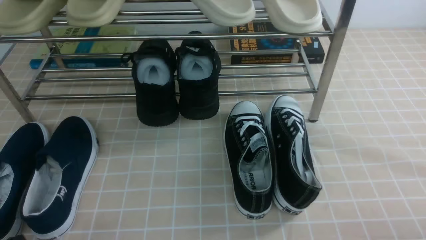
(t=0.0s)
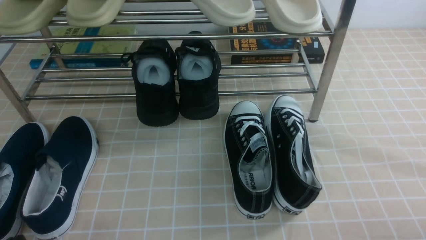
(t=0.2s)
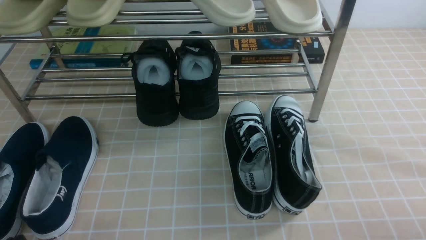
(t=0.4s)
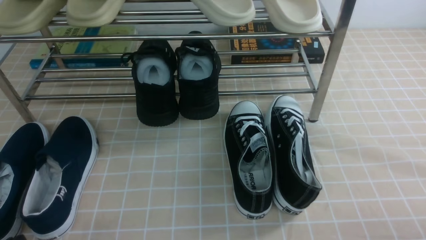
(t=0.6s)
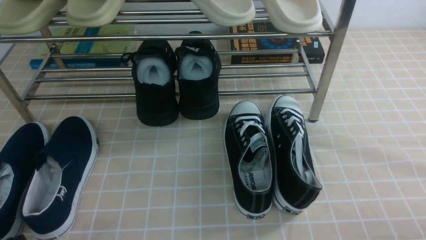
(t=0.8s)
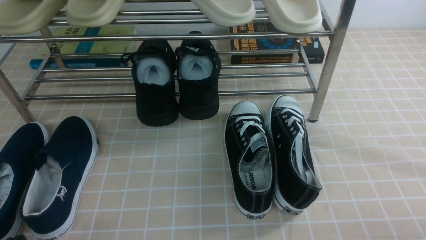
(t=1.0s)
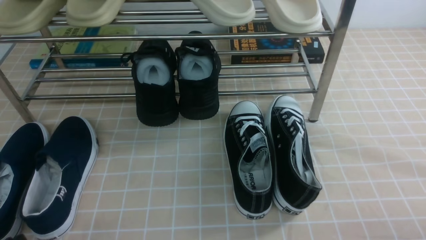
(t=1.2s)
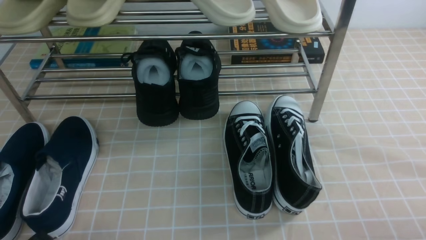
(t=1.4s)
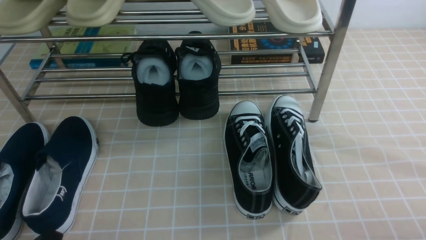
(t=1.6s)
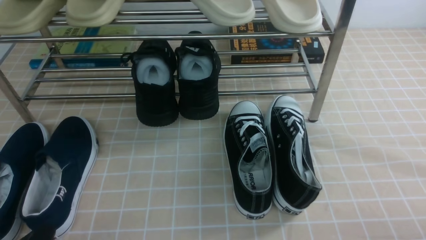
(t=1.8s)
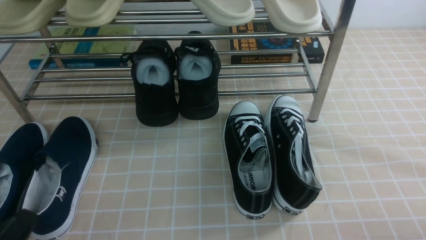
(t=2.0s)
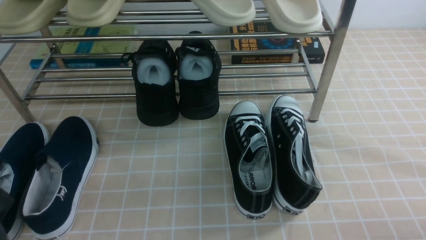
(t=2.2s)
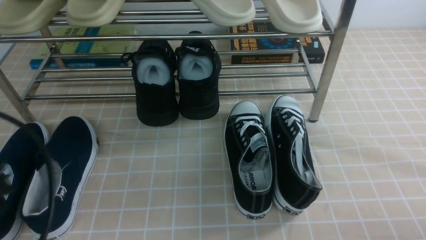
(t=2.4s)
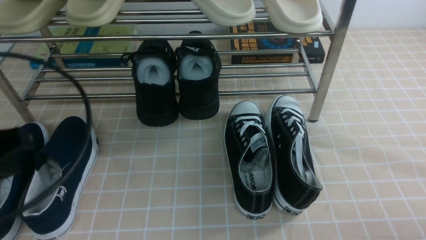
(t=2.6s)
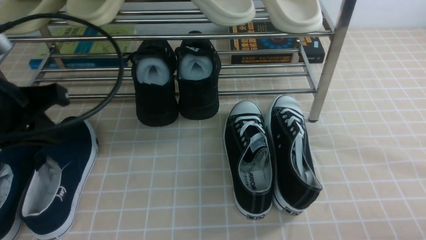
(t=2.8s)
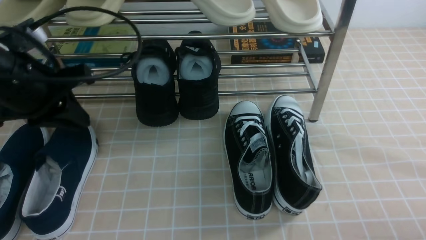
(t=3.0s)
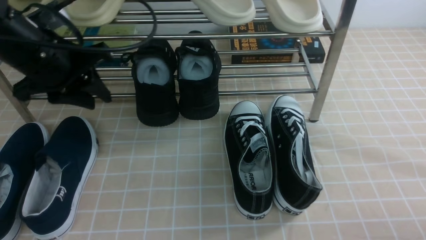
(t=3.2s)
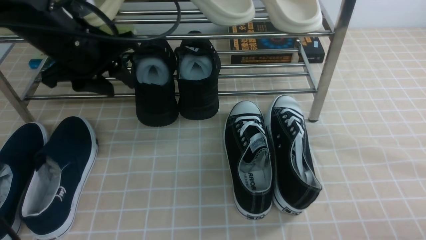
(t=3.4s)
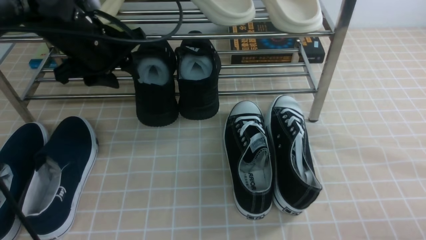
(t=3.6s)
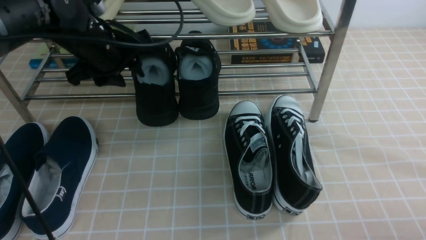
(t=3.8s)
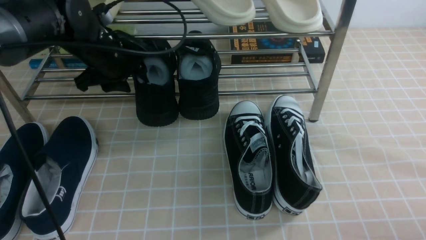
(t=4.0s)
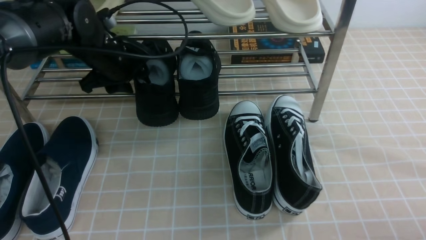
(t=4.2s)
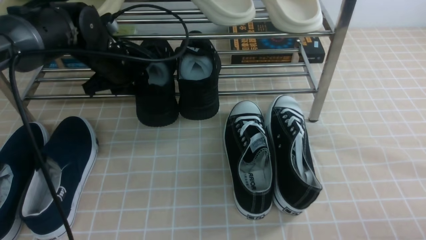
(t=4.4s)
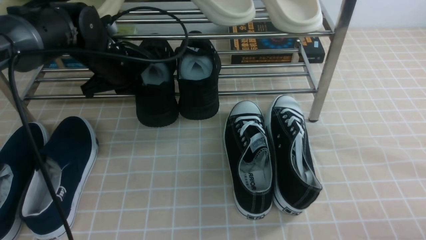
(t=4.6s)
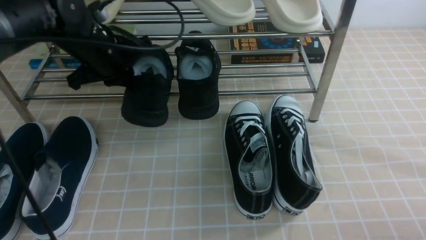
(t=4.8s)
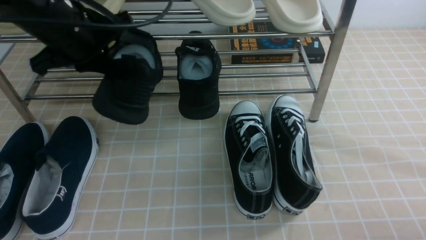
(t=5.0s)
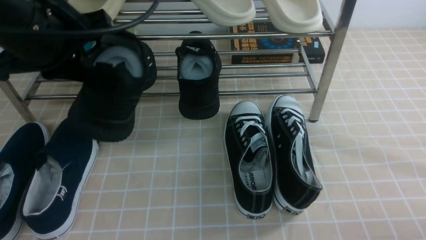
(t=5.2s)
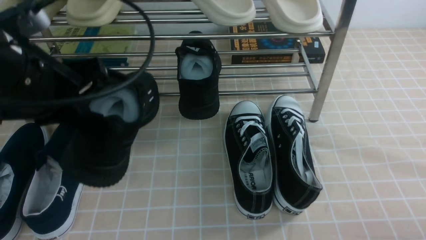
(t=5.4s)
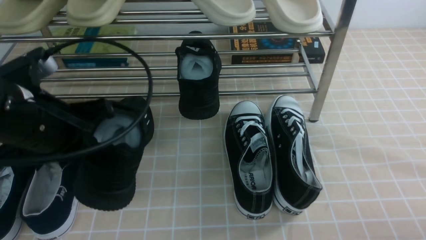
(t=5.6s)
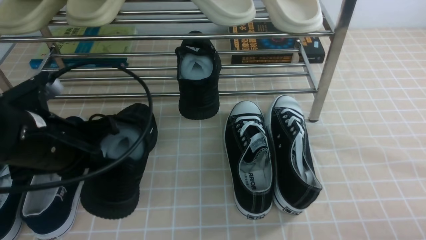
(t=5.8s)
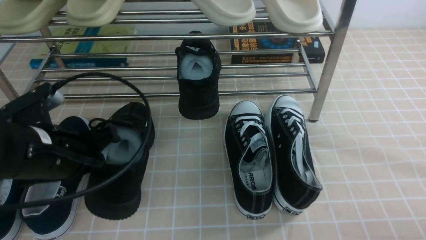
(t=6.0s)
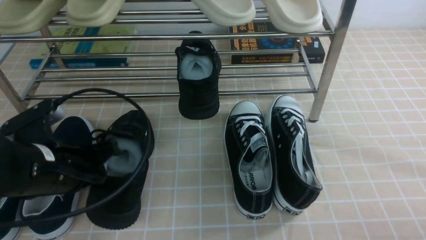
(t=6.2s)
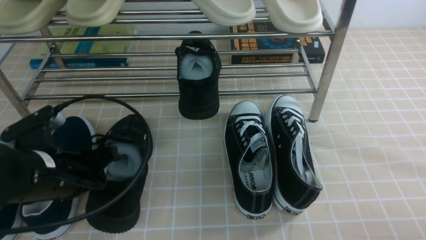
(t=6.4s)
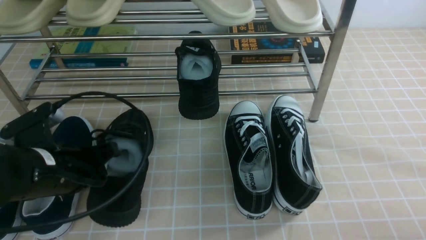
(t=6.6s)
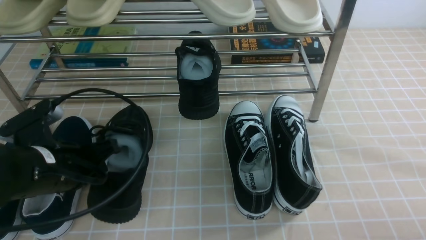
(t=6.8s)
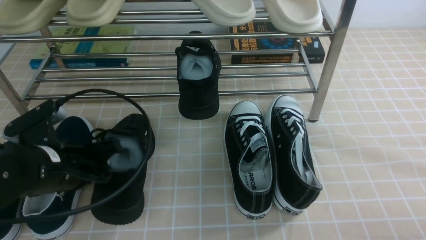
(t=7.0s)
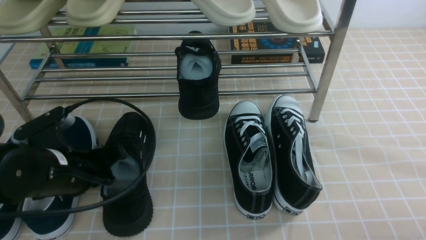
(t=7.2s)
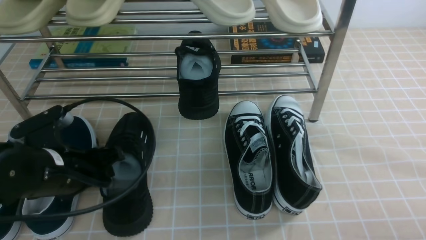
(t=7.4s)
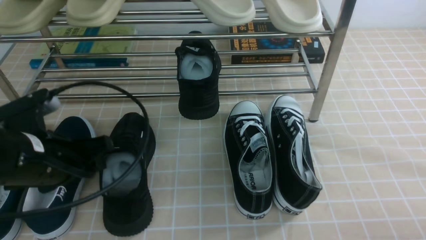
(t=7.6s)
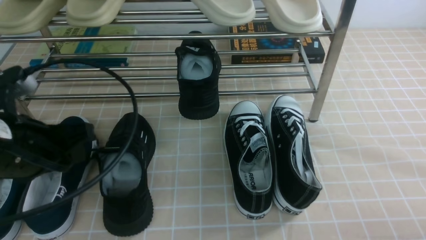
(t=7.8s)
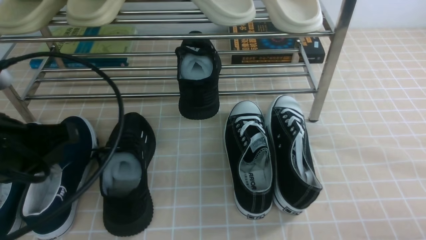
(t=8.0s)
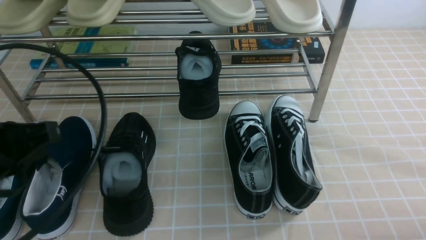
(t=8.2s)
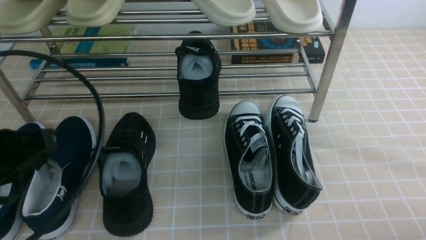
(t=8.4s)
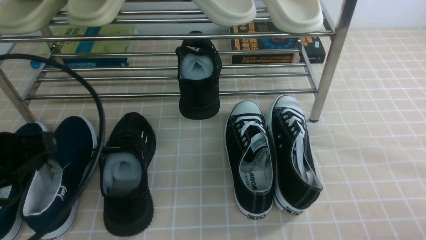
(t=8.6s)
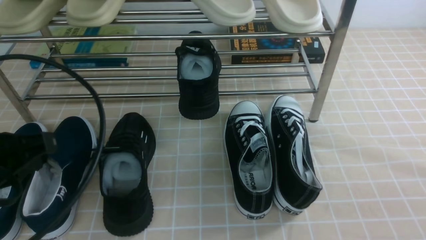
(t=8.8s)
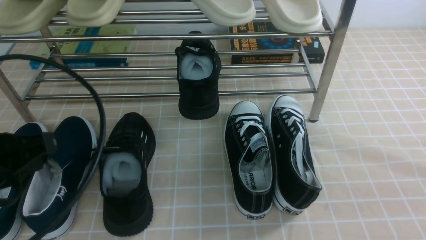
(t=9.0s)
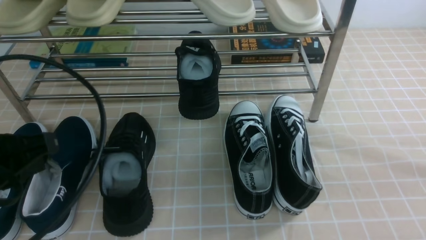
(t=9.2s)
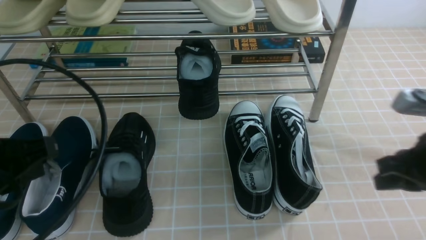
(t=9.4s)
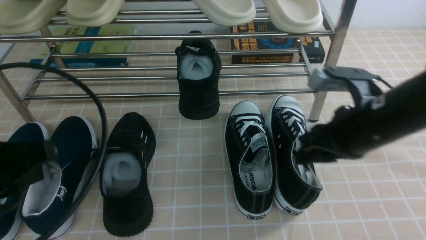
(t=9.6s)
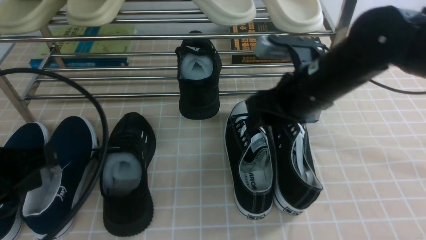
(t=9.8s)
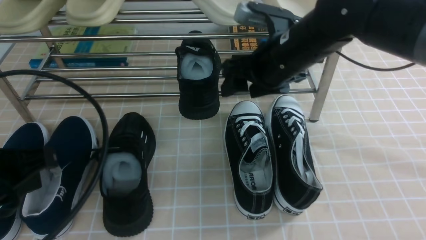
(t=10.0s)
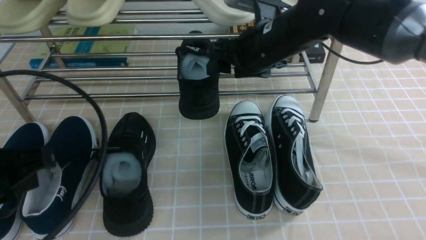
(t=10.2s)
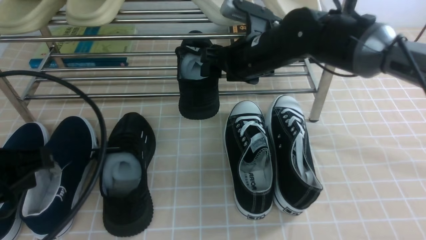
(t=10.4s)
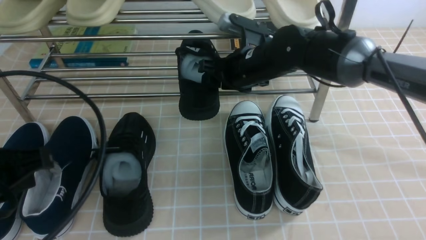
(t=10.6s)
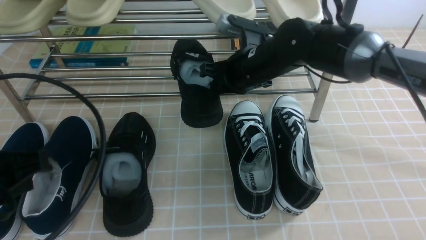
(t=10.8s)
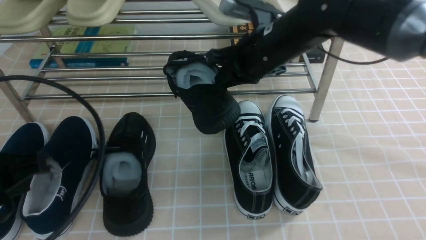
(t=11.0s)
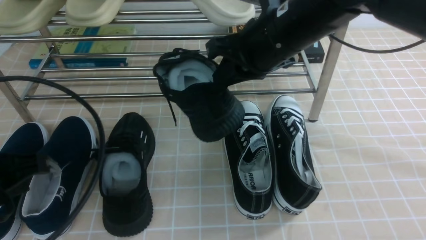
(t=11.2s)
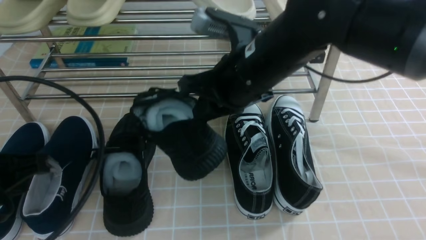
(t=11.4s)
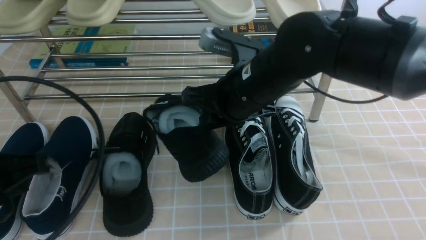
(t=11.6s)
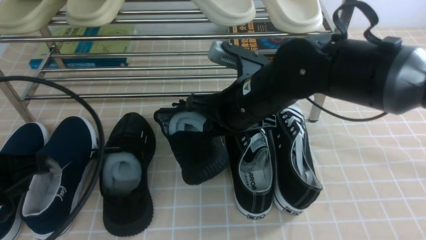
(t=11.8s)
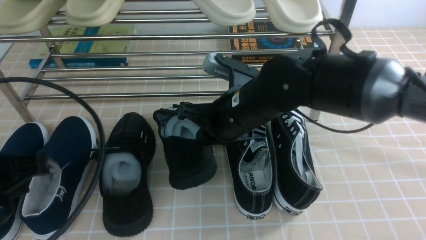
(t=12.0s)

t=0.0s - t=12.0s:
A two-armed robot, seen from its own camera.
Step, t=0.0s - t=4.4s: use the left arm to clamp a shoe in the middle of the shoe rack.
Step, t=4.6s - t=7.4s: Use your left arm to remove the clamped shoe from the shoe rack and put it down.
Step, t=7.6s - t=10.6s: use the right arm to clamp a shoe in the middle of the shoe rack.
t=1.6s - t=3.0s: The left gripper heads forward and upward, covering about 30 cm, and closes, then opens again.
t=3.0s - t=4.4s: The left gripper goes approximately 15 cm forward, downward and to the right, and opens, then closes again.
t=4.4s - t=6.0s: The left gripper goes approximately 20 cm backward, and closes up.
t=6.0s - t=7.6s: The left gripper opens up.
t=7.6s - t=9.0s: The left gripper heads upward and backward, covering some 10 cm, and closes.
t=9.0s - t=10.4s: The right gripper moves forward and to the left, some 40 cm, and opens.
t=10.4s - t=12.0s: The right gripper shifts roughly 10 cm backward, and closes up.

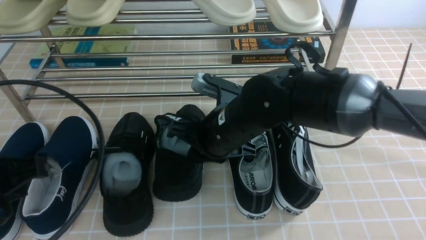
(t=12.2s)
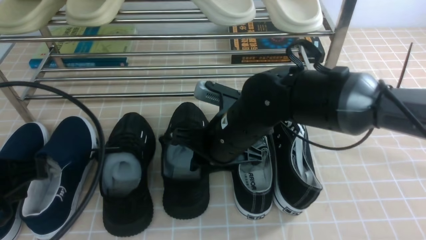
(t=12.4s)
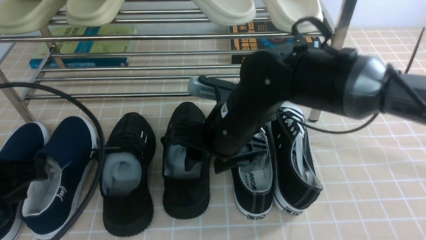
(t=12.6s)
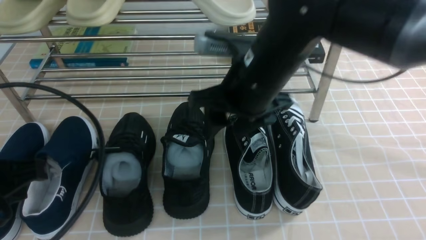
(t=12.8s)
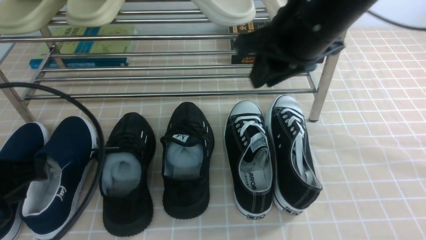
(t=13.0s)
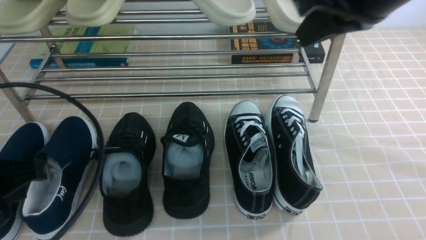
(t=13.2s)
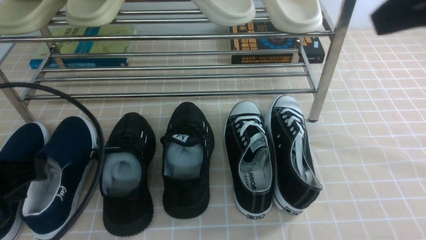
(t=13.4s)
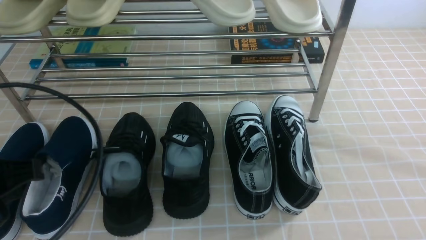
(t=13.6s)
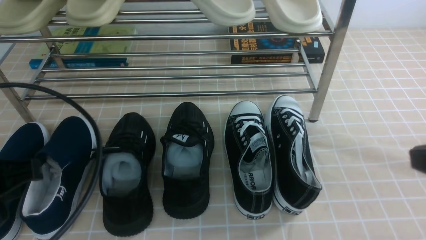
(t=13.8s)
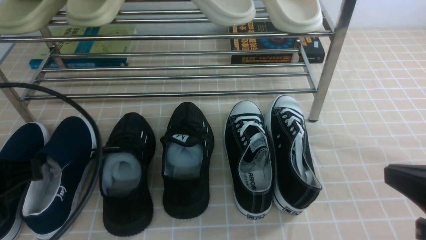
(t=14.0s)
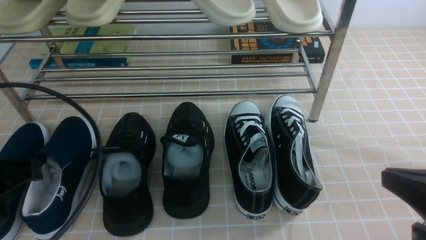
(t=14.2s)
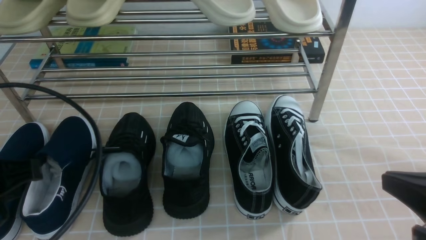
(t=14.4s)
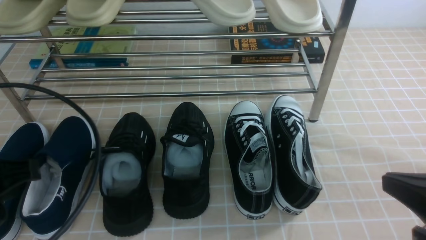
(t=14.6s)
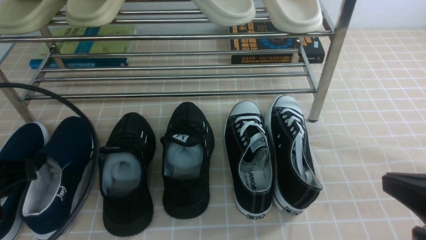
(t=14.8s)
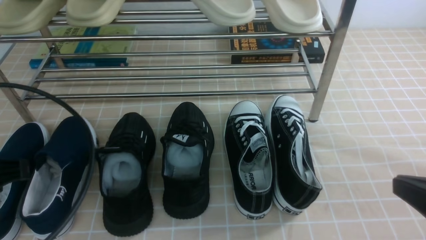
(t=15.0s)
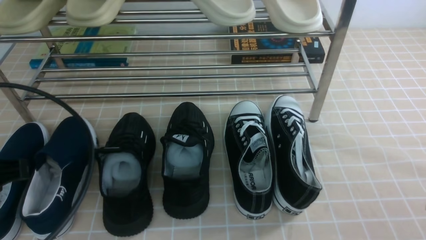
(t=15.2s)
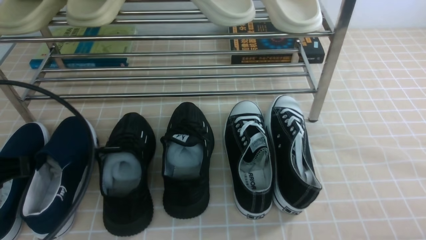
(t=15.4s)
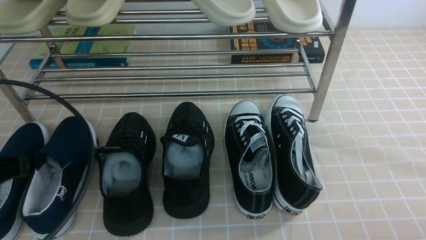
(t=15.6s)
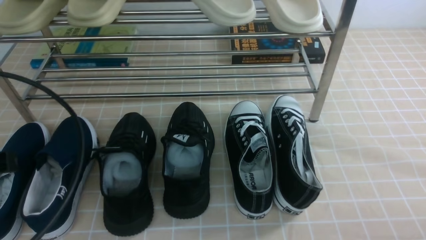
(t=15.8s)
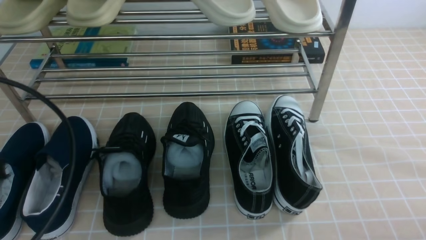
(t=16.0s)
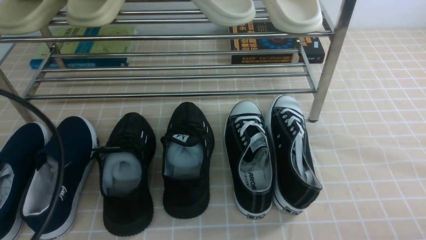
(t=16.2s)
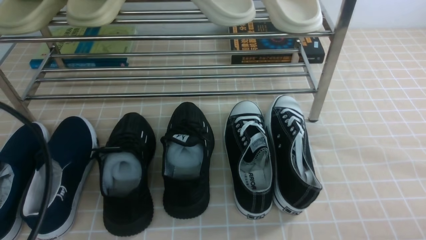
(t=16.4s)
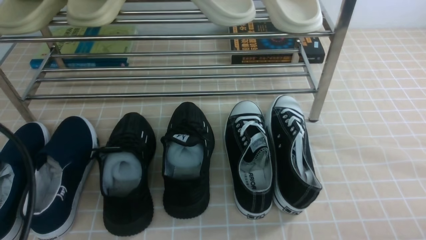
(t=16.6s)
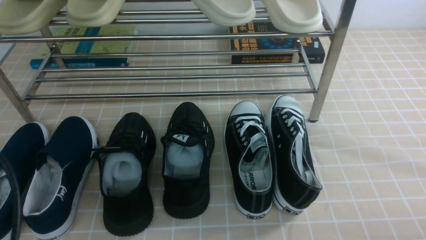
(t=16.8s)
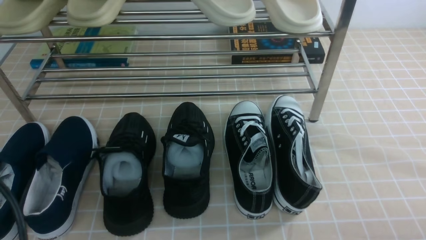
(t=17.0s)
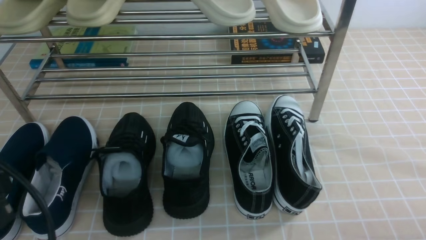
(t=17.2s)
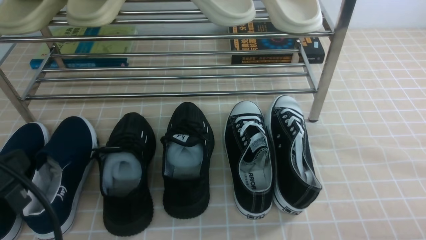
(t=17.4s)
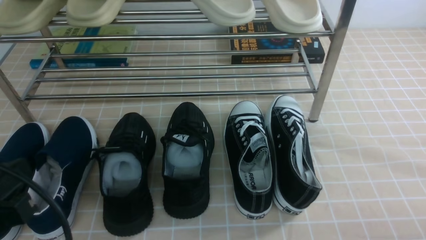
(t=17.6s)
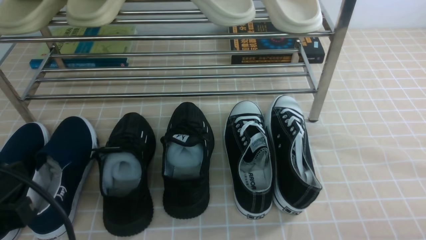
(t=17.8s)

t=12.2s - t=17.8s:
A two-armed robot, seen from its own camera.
t=12.2s - t=13.6s: The right gripper goes some 35 cm to the right, upward and backward, and opens, then closes again.
t=13.6s - t=15.0s: The right gripper heads downward, covering approximately 15 cm.
t=15.0s - t=16.4s: The right gripper moves downward, about 10 cm. The left gripper travels backward by about 5 cm, and closes up.
t=16.4s - t=17.8s: The left gripper moves downward, roughly 5 cm.
